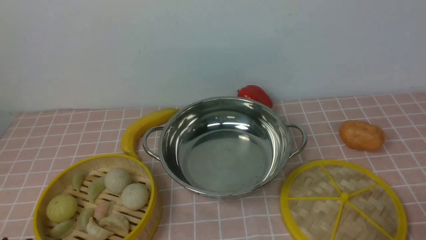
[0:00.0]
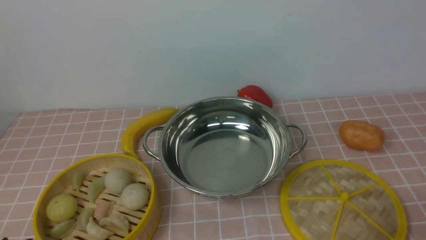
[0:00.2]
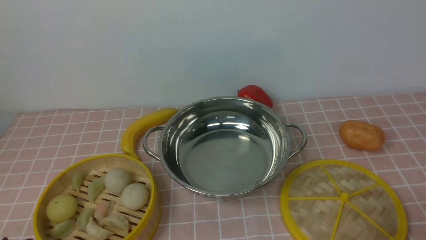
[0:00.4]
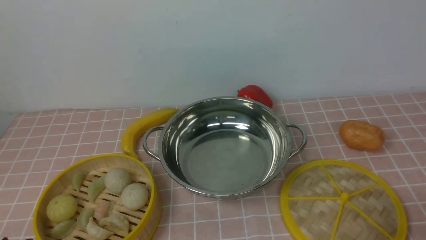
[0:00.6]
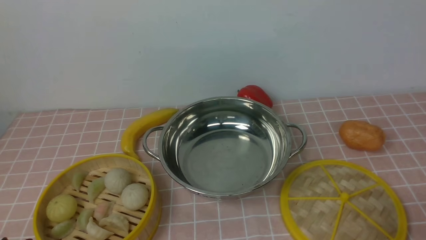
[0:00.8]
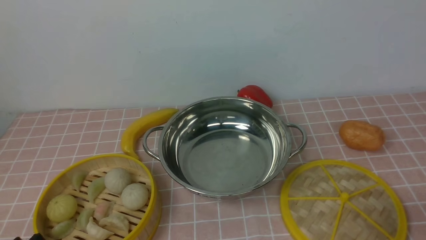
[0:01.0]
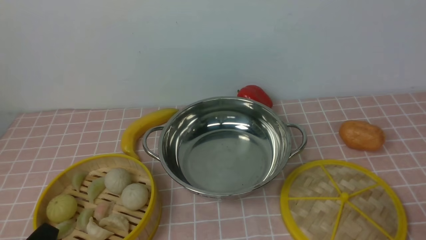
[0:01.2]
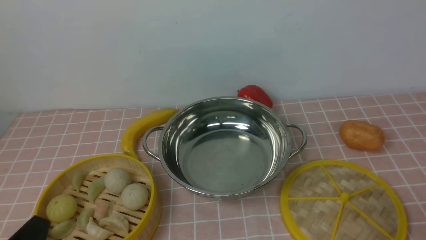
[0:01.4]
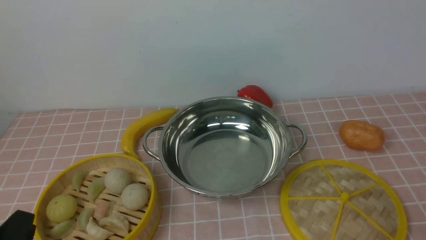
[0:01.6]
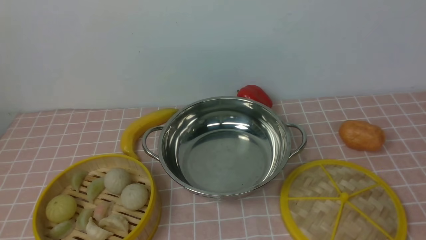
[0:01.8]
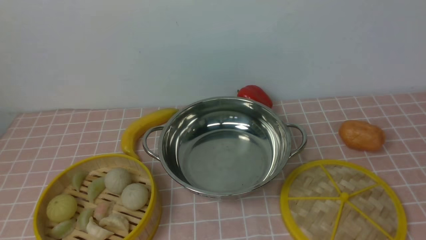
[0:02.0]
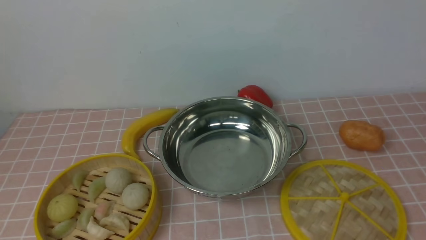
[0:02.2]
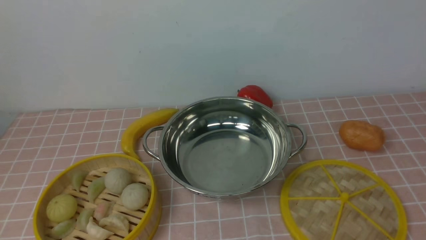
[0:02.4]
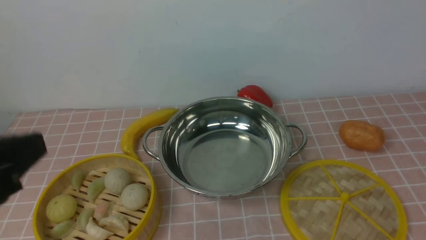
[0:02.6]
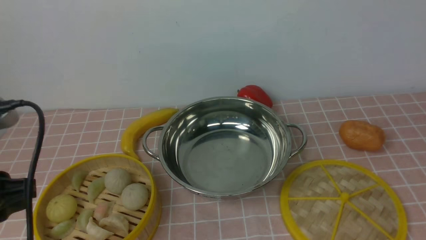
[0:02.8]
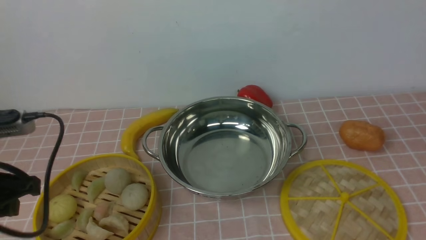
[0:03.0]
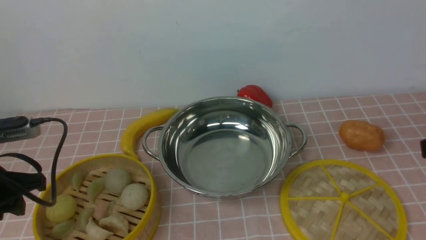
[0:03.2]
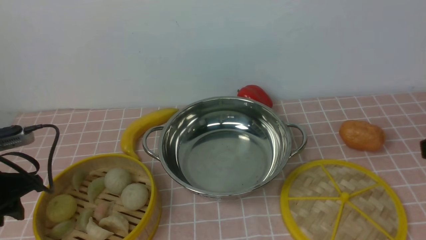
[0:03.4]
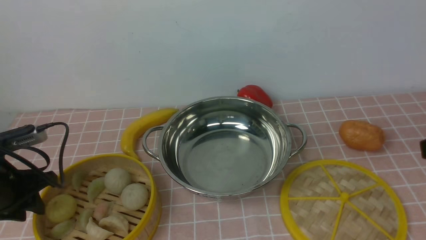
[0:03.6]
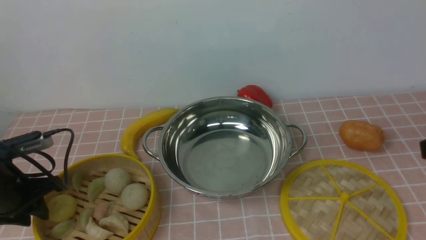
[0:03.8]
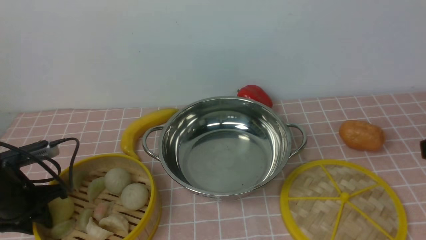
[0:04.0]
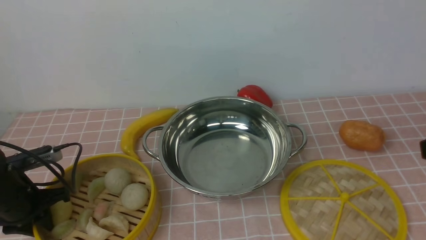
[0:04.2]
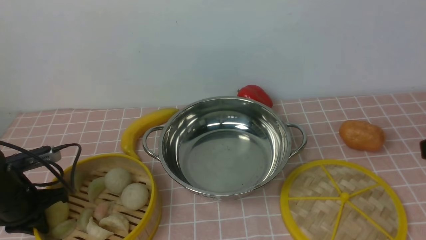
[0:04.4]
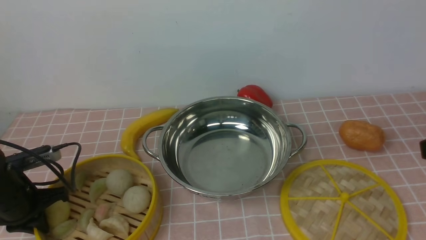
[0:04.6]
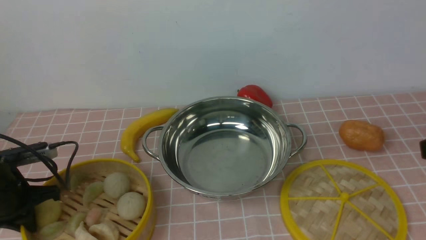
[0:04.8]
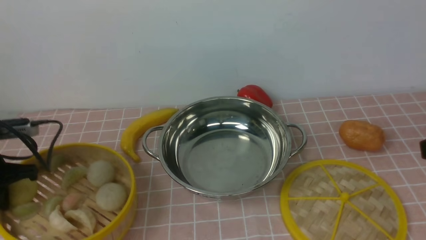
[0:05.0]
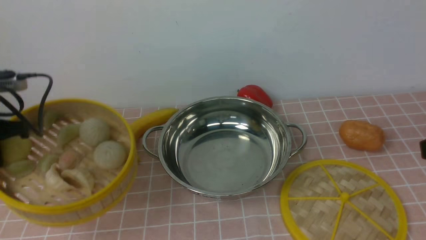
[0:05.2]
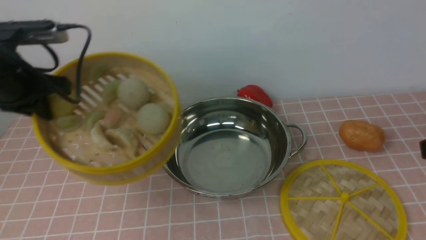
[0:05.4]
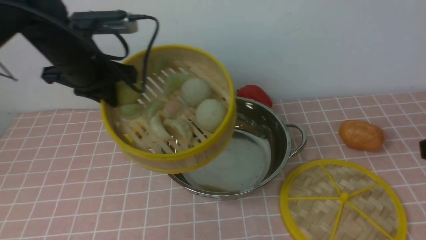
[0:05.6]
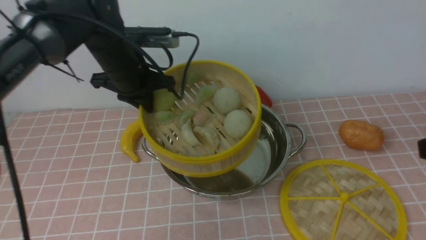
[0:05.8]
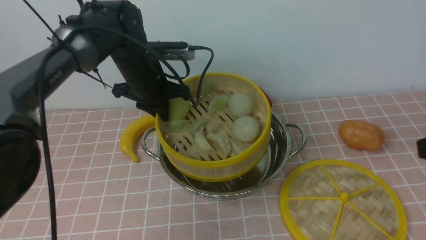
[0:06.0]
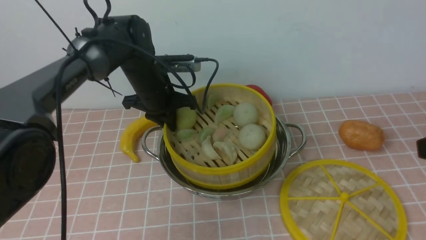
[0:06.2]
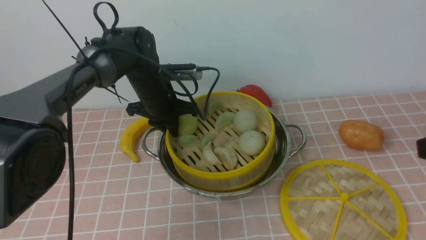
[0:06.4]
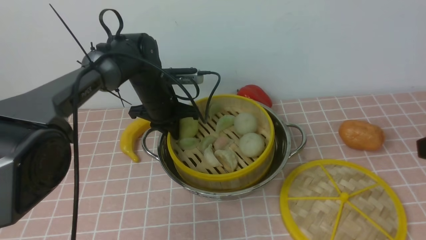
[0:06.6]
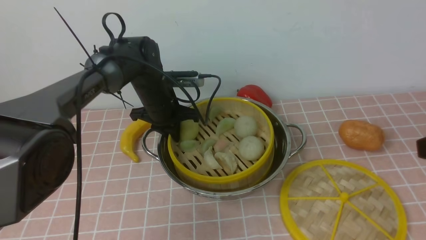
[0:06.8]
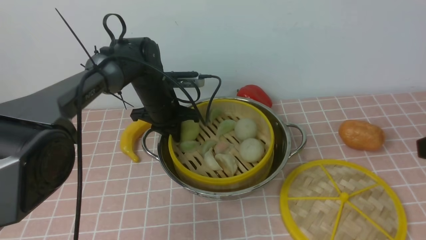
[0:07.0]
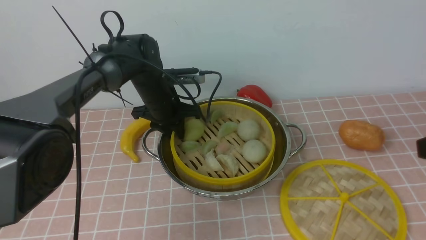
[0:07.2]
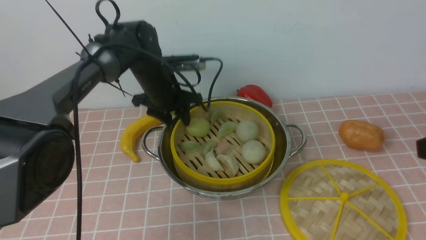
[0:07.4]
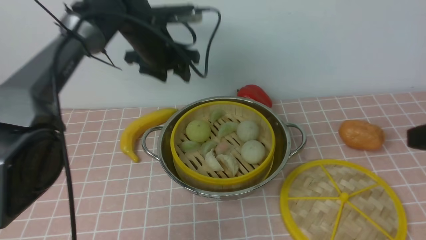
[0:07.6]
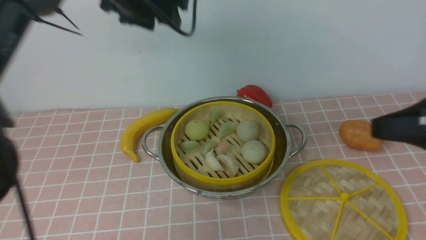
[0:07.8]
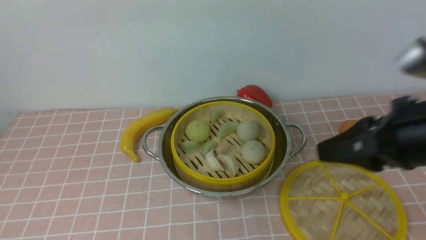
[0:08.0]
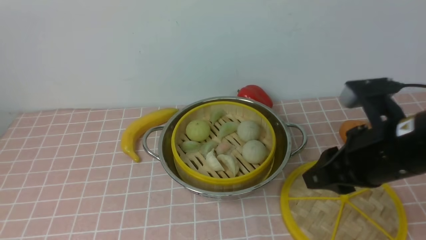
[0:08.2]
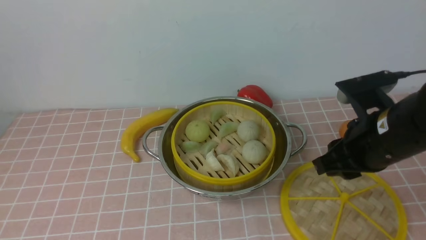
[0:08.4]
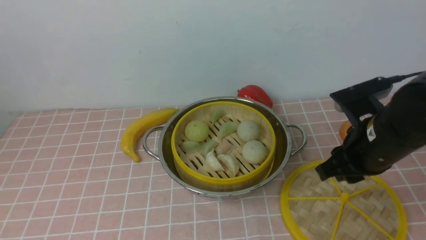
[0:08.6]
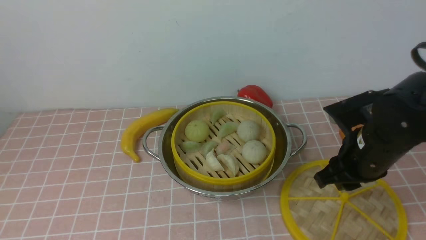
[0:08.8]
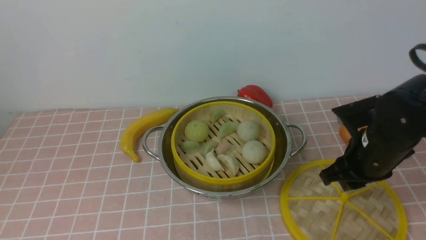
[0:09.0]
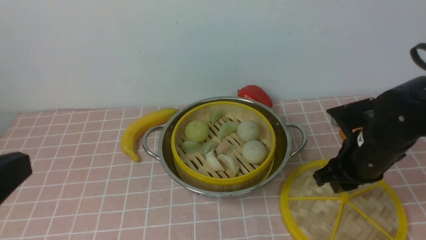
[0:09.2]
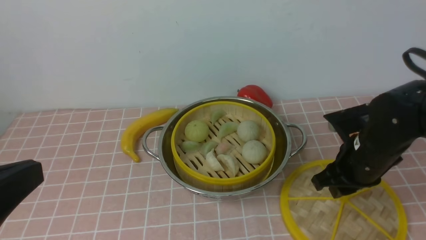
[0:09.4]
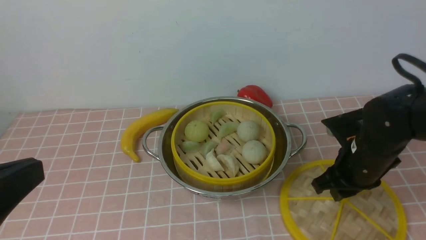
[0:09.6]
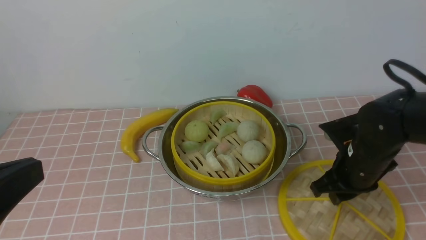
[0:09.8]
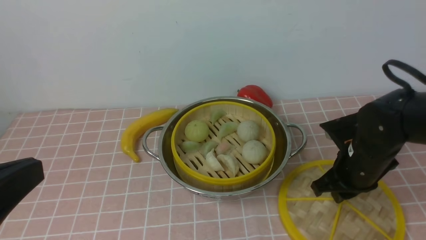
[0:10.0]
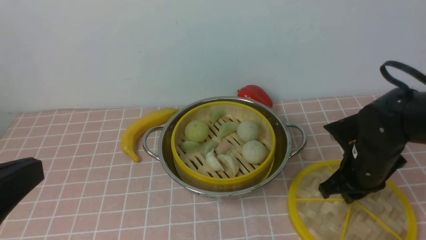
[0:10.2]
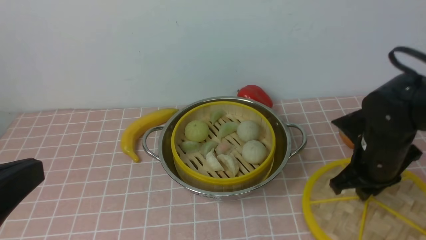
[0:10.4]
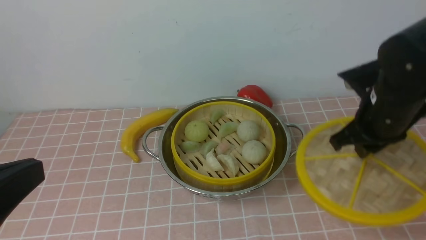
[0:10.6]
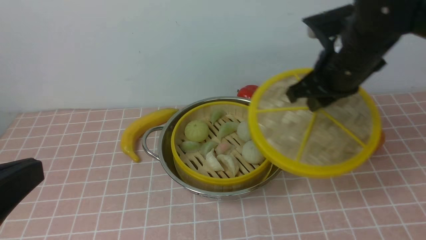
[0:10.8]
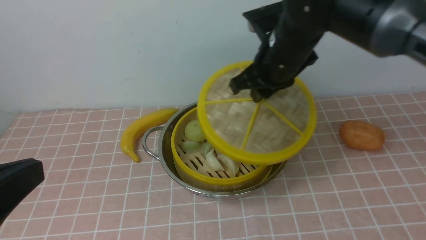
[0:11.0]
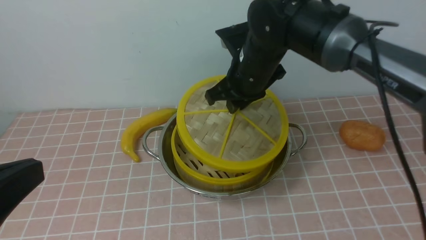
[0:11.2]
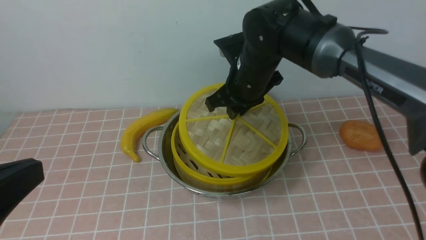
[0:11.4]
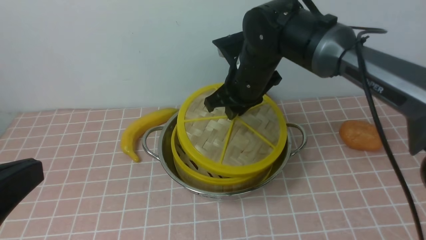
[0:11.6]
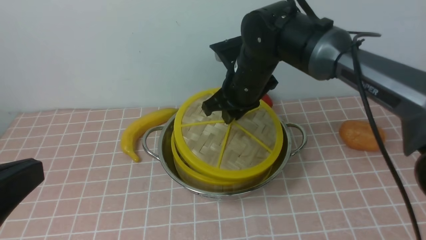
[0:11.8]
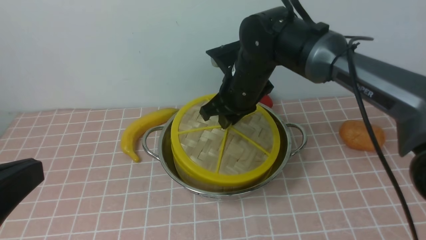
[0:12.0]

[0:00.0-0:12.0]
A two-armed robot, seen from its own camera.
Task of the whole recording: place the steamer in the pot on the pink tablecloth, and put the lid on the steamer.
Step, 0:00.0 to 0:05.0: use the left arm to lift the steamer closest to it.
Step, 0:05.2 to 0:07.4: use the left arm to put the steamer into the iron steamer pot in the middle.
Step, 0:07.6 to 0:10.4: use the right arm to lift the lid of the steamer.
0:01.6 to 0:03.0: The left gripper shifts roughly 15 cm forward and upward.
0:03.0 to 0:04.4: The left gripper goes some 15 cm downward and forward.
0:04.4 to 0:06.0: The left gripper travels to the right, forward and upward by some 25 cm.
0:06.0 to 0:07.6: The left gripper moves about 10 cm downward and comes back, and opens its fingers.
0:07.6 to 0:09.0: The left gripper goes approximately 40 cm backward and upward, and closes its fingers. Meanwhile the right gripper moves downward, forward and to the left, some 20 cm.
0:09.0 to 0:10.4: The left gripper moves downward, roughly 10 cm.
0:10.4 to 0:12.0: The right gripper heads to the left and forward, covering some 20 cm.

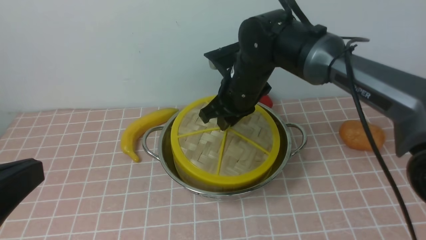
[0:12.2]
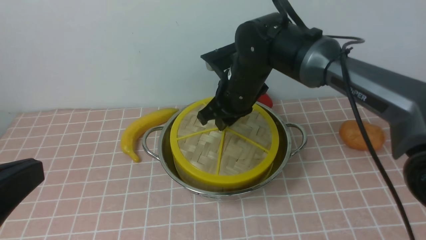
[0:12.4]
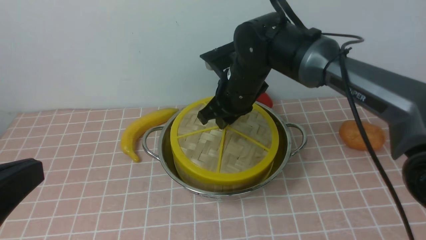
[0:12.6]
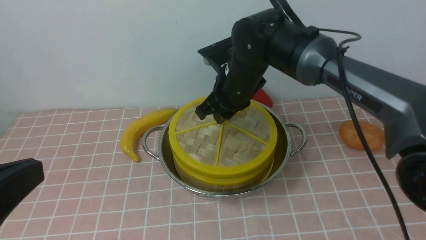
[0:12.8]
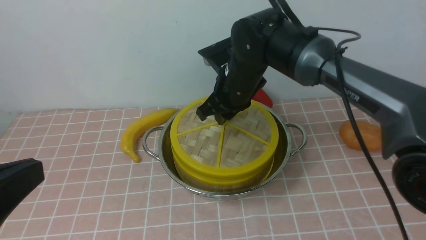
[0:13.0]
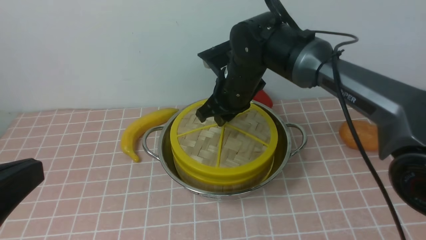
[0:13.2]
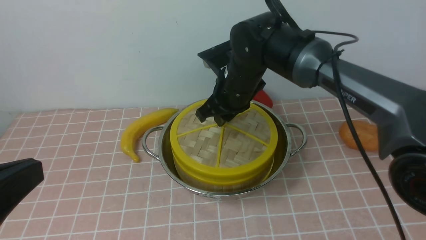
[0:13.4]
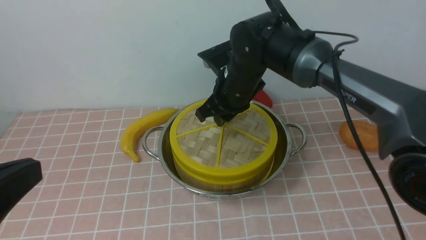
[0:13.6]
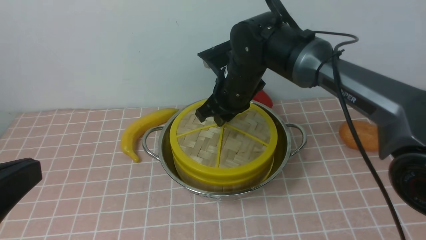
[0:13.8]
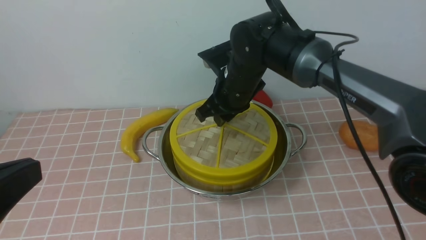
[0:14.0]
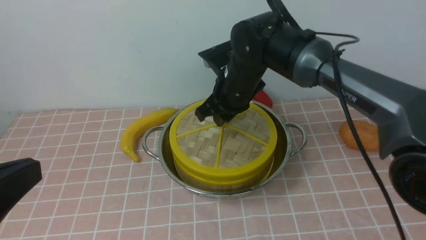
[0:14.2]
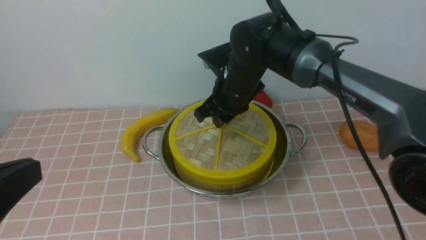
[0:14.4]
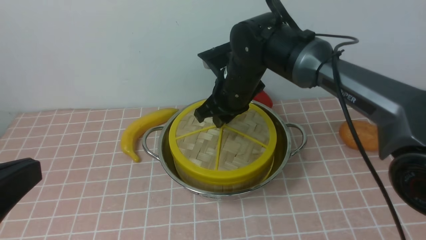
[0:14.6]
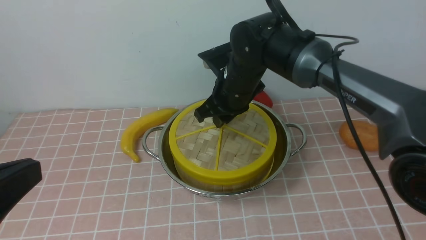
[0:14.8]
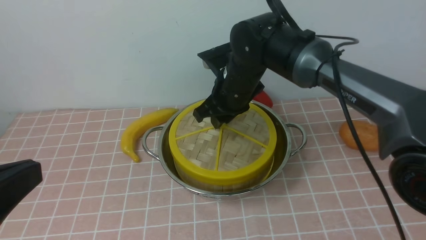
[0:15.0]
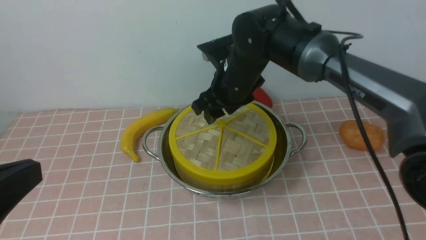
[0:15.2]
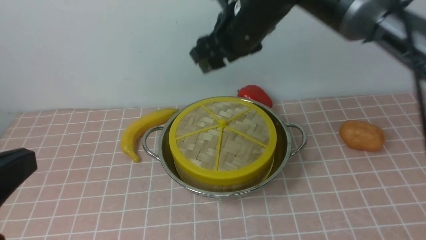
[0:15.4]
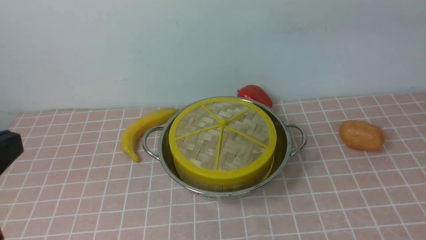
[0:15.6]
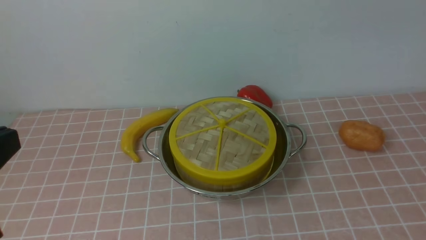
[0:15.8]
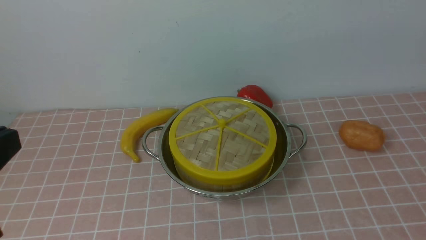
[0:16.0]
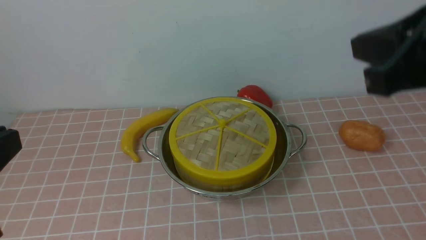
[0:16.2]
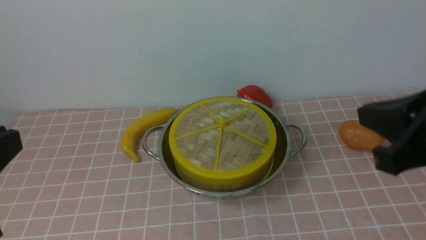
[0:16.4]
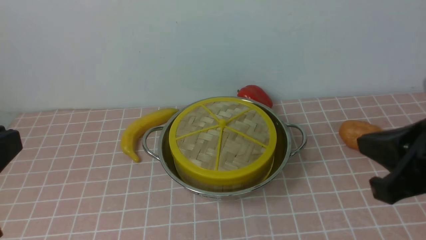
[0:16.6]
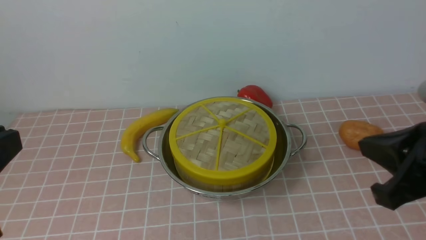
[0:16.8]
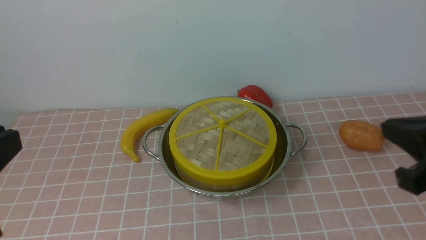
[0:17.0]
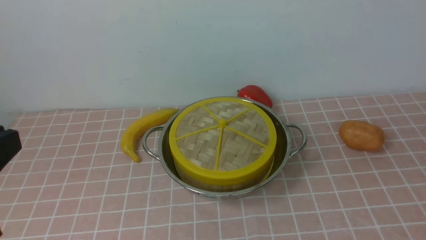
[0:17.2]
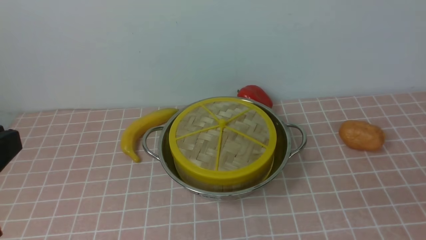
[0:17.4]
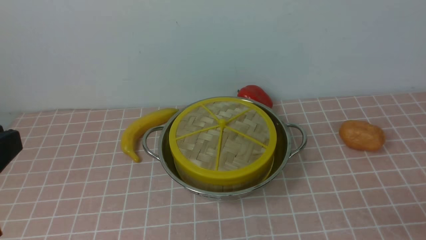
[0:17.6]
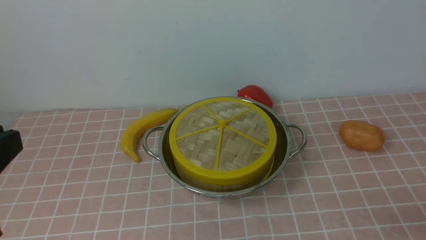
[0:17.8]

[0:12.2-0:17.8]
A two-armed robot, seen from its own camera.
Task of the whole recording: place the steamer in the pot on the pink tablecloth, and put the lid on the steamer.
Step, 0:12.2 to 0:15.2: use the right arm to place the steamer lid on the steamer.
0:12.2 to 0:13.6: The grippers make only small movements.
0:13.6 to 0:15.0: The two grippers keep their place.
0:15.0 to 0:16.4: The right gripper shifts about 35 cm backward, to the right and upward, and closes.
0:16.4 to 0:17.8: The right gripper goes roughly 25 cm downward, to the right and backward.
